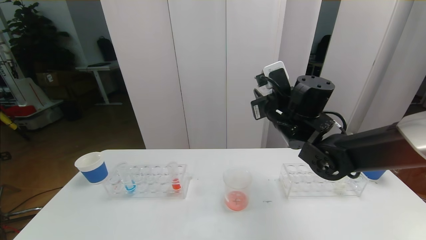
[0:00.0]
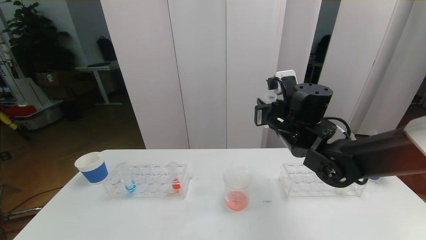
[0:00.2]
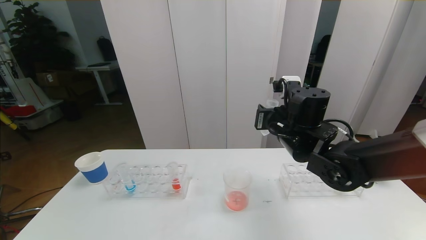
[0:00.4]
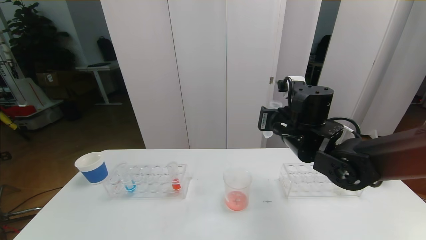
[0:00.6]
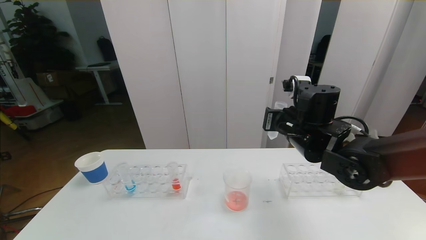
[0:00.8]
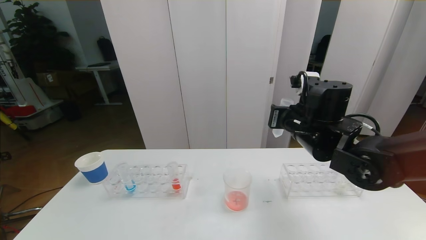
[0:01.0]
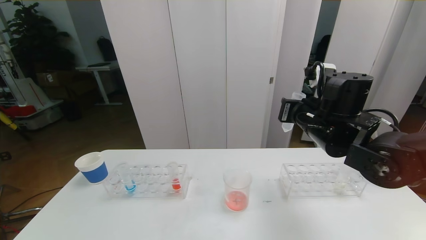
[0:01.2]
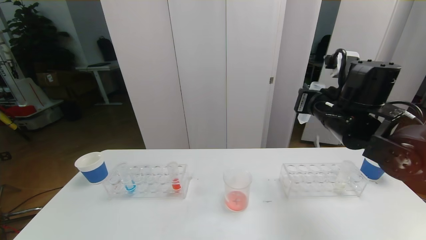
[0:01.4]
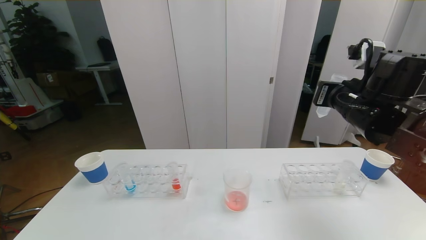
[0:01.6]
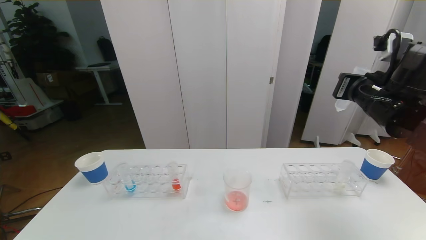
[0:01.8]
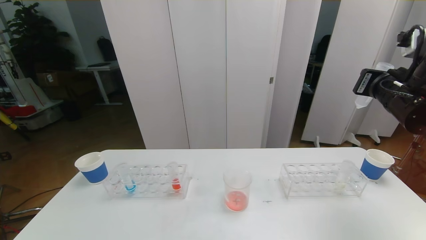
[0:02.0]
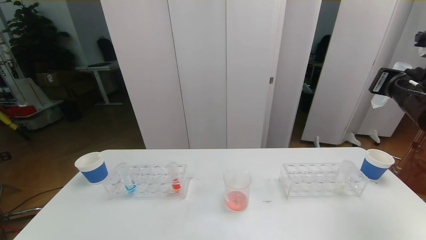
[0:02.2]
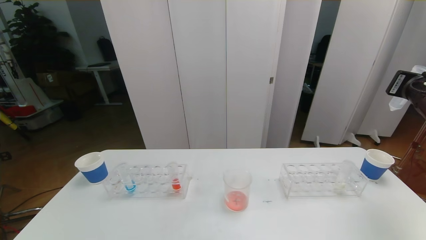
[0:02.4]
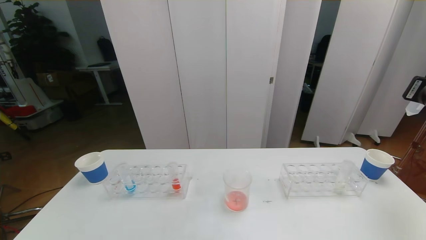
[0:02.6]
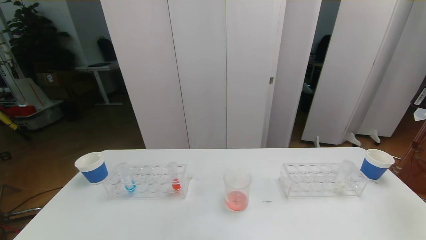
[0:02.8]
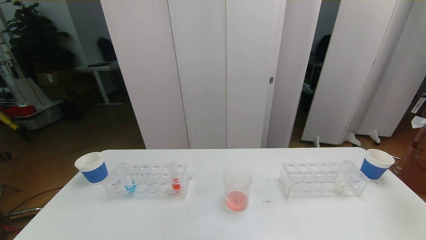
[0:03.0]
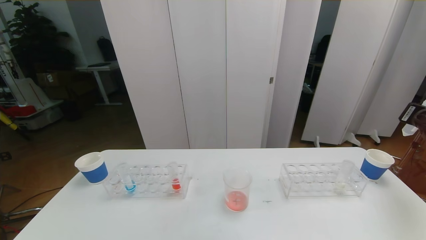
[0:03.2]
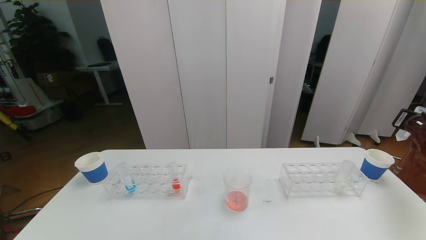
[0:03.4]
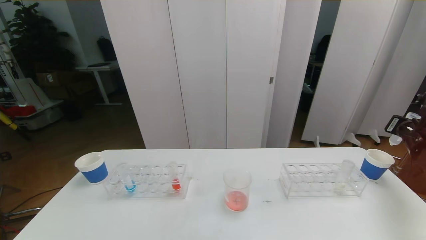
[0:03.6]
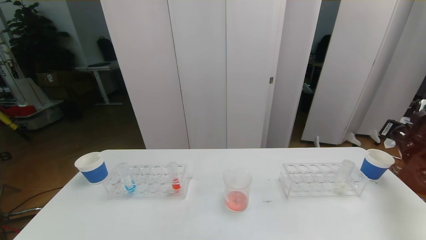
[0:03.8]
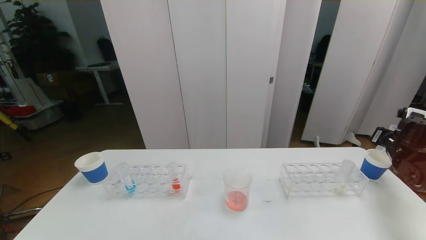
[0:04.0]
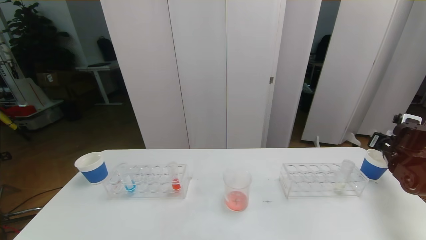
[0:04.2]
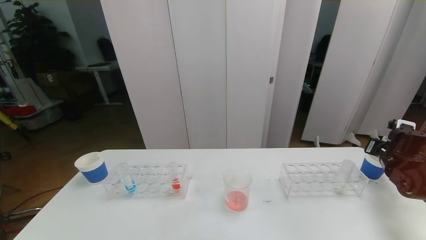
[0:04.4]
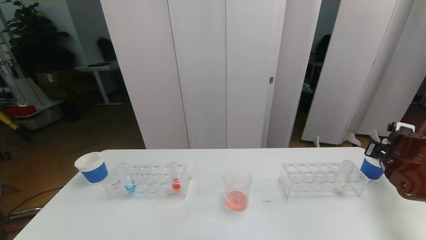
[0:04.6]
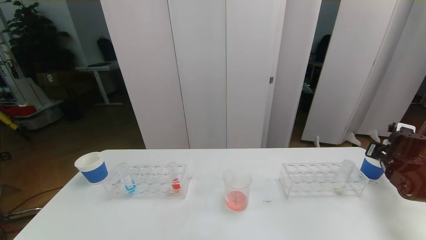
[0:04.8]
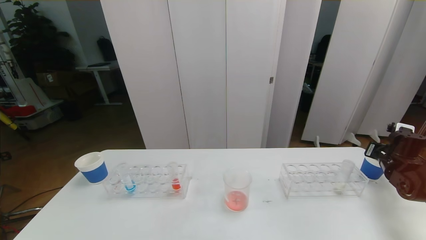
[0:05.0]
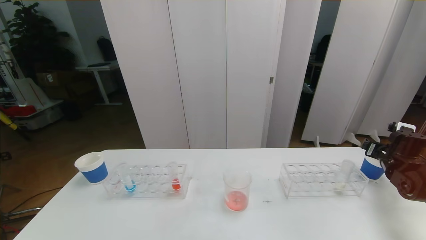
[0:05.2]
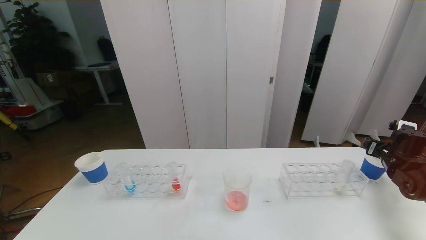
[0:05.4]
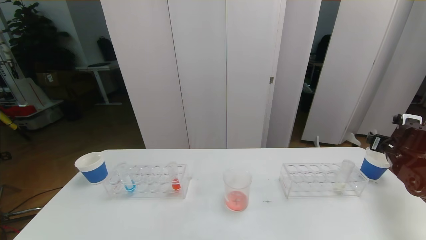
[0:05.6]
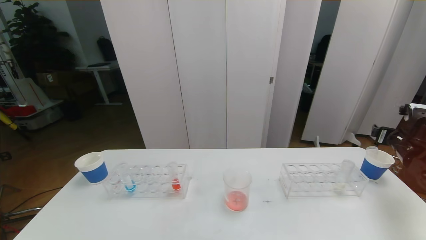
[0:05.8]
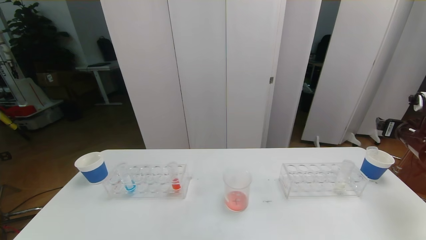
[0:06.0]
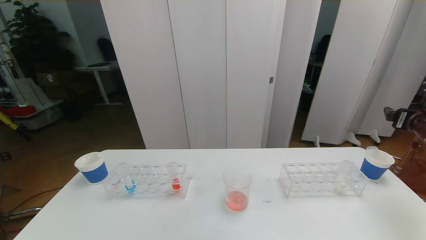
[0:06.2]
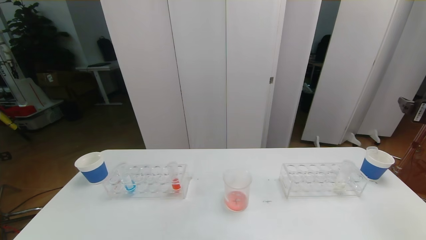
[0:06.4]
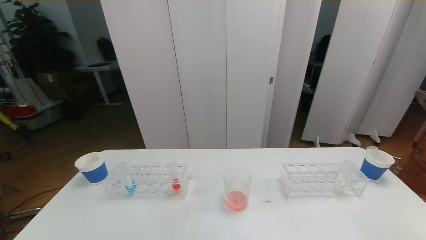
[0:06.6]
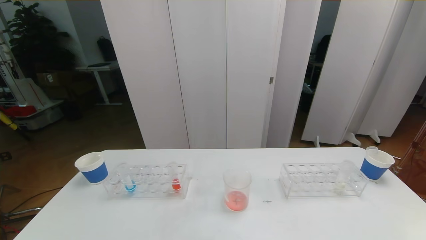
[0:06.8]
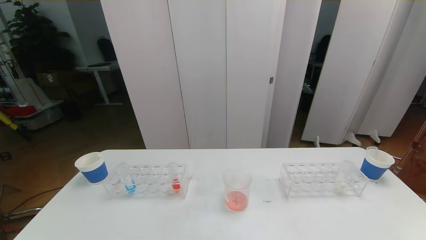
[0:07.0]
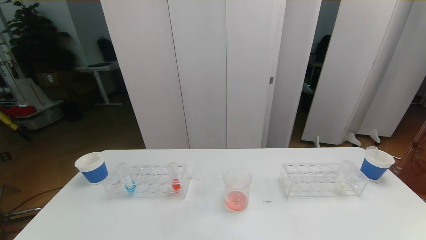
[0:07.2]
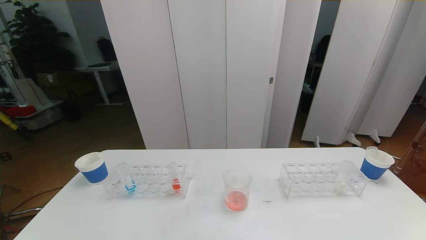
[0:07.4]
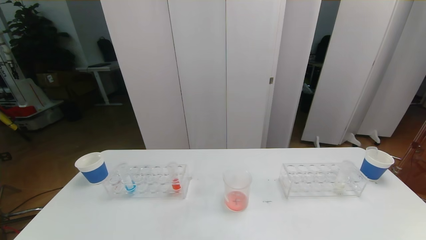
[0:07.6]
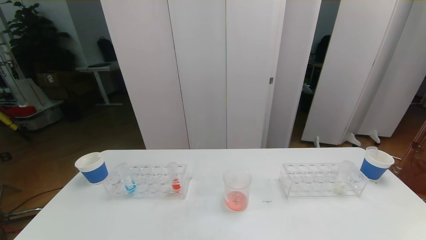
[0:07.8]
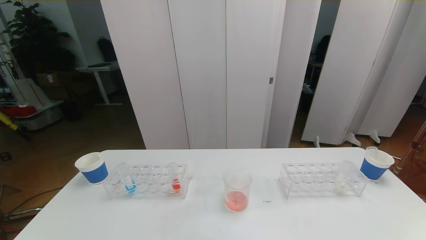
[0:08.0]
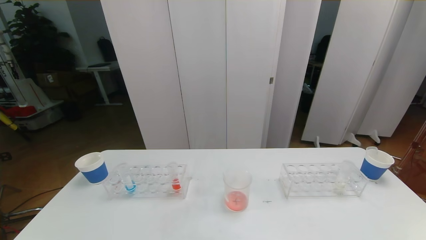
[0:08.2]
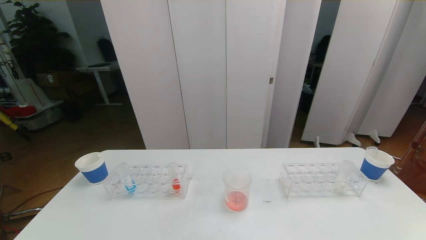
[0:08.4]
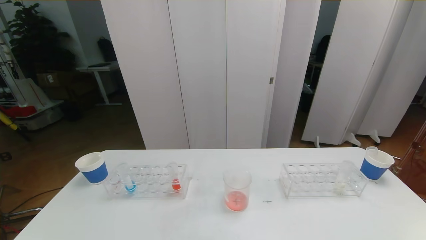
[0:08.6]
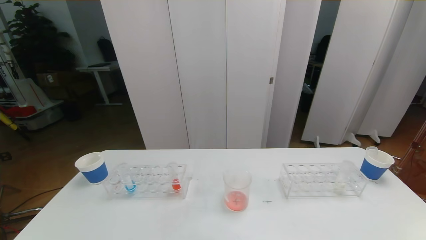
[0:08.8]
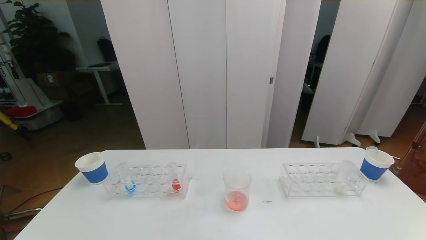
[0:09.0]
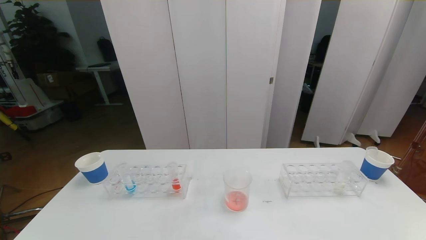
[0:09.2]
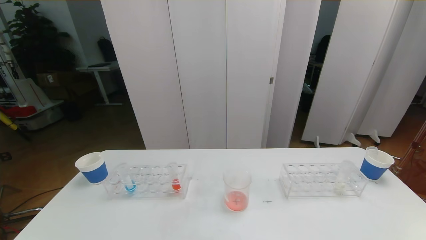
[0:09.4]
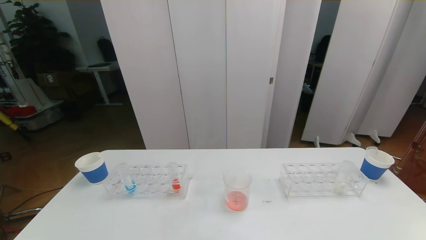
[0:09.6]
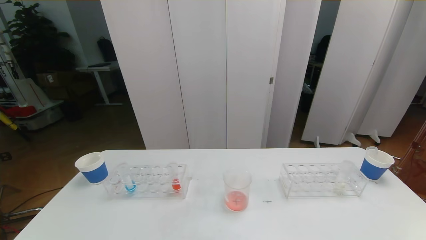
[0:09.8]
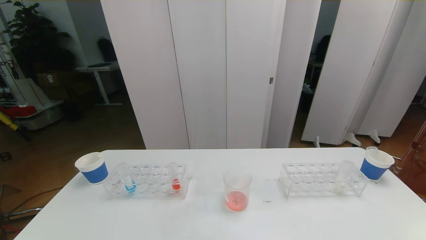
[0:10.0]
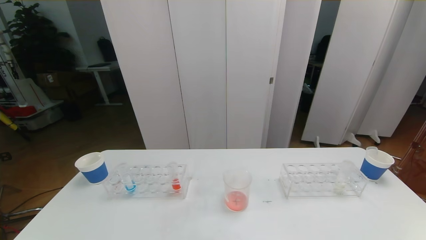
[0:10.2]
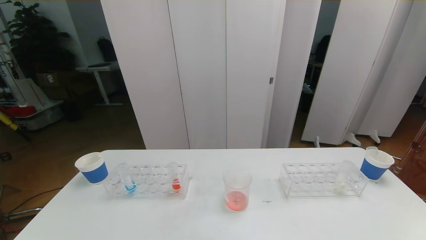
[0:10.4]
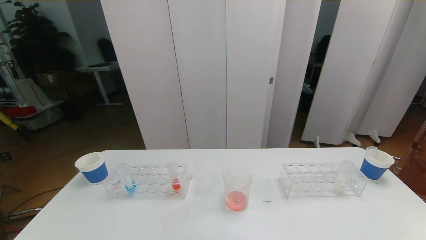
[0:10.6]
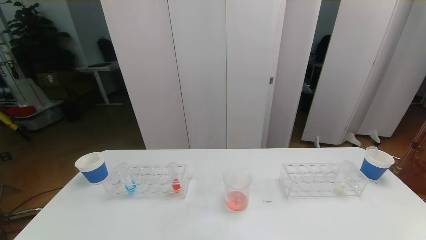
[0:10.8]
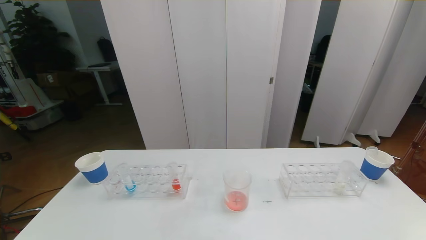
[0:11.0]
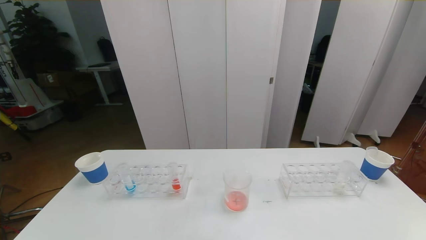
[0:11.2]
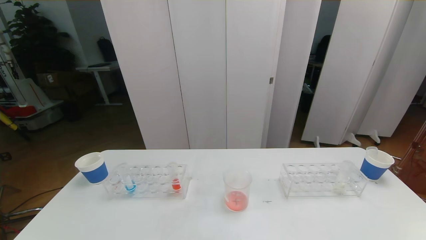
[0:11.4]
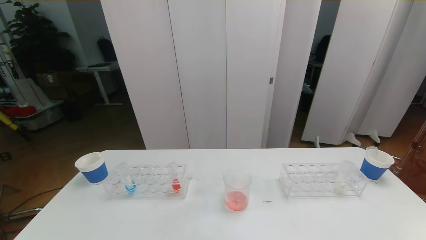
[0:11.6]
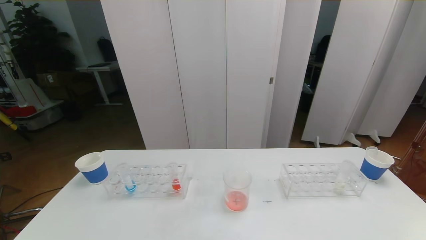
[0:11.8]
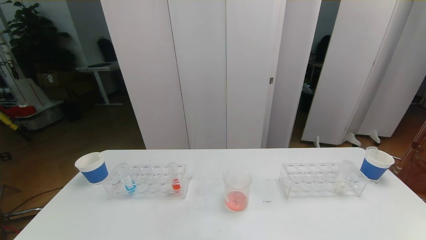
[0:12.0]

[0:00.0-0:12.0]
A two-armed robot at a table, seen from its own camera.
Task of the whole recording: pick up the test tube with red pigment the test tube with blue pigment and the test tube with white pigment by grippers and pour them into the beaker.
0:00.0 to 0:01.6: The right gripper goes approximately 10 cm to the right.
0:01.6 to 0:03.0: The right gripper travels to the right by some 20 cm.
0:03.0 to 0:04.4: The right gripper moves downward, about 15 cm.
0:04.4 to 0:06.0: The right gripper travels upward by about 10 cm, and opens up.
0:06.0 to 0:07.6: The right gripper goes about 40 cm backward.
0:09.0 to 0:10.4: Neither gripper changes place.

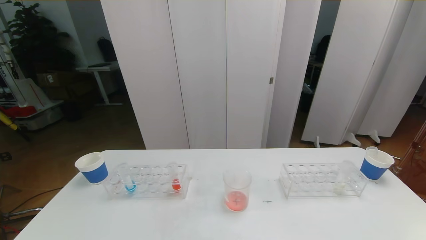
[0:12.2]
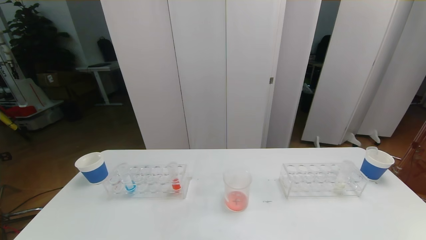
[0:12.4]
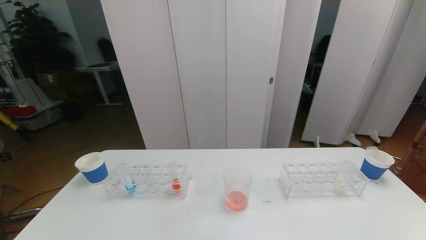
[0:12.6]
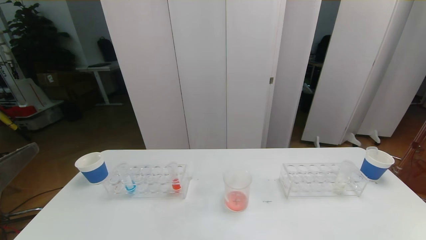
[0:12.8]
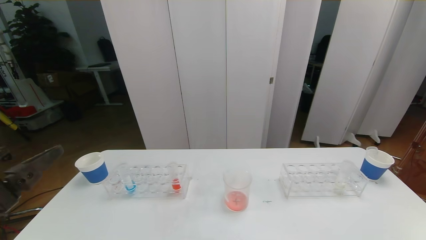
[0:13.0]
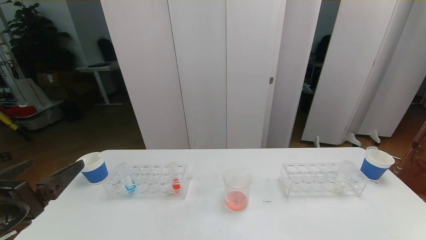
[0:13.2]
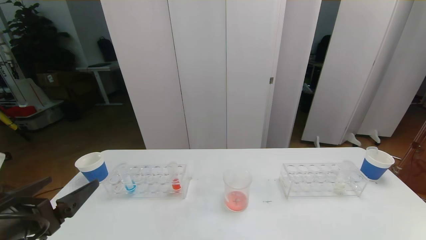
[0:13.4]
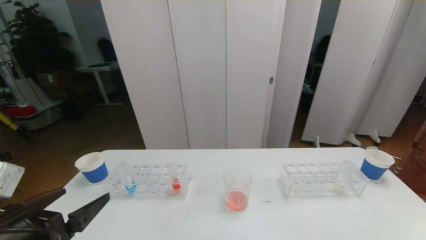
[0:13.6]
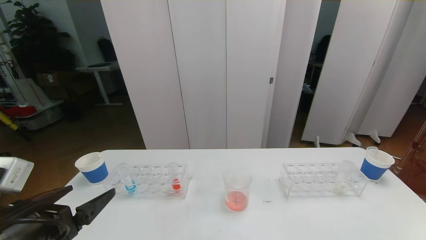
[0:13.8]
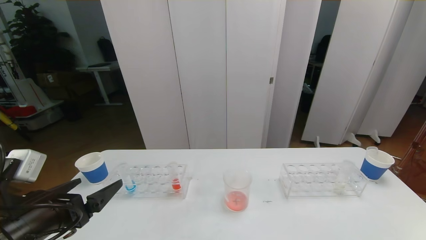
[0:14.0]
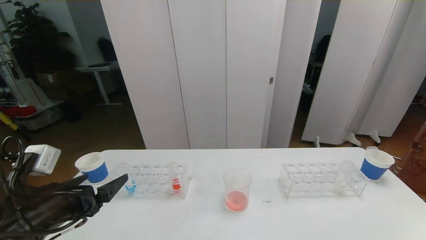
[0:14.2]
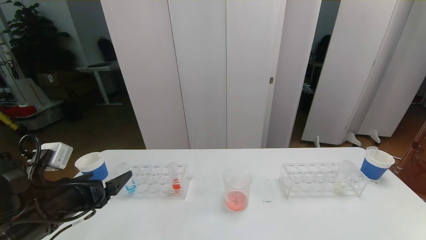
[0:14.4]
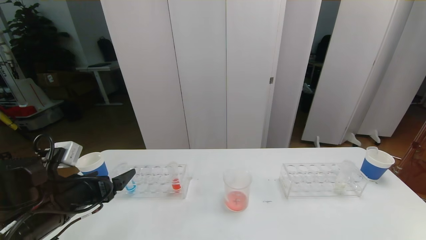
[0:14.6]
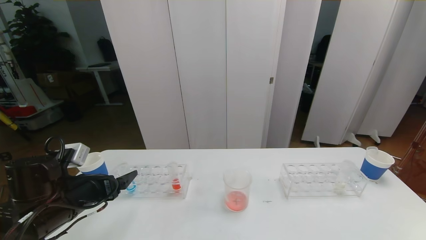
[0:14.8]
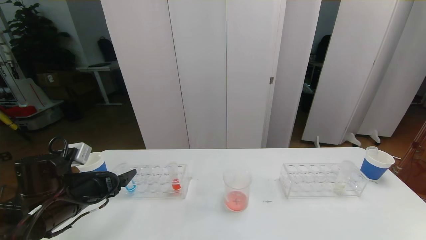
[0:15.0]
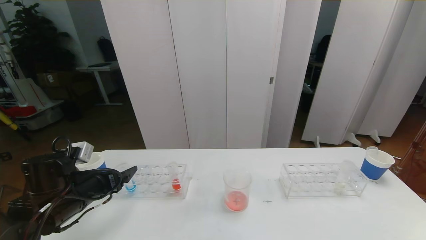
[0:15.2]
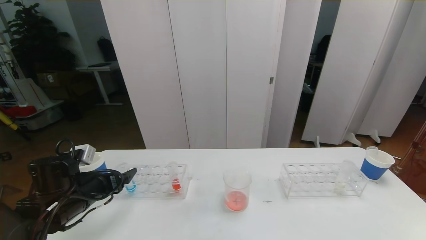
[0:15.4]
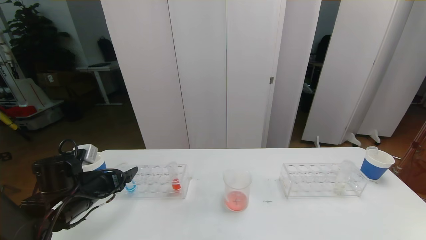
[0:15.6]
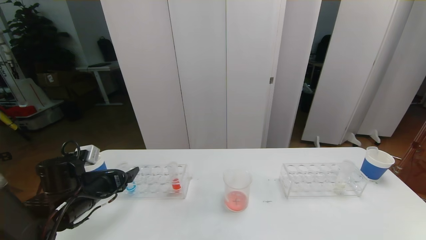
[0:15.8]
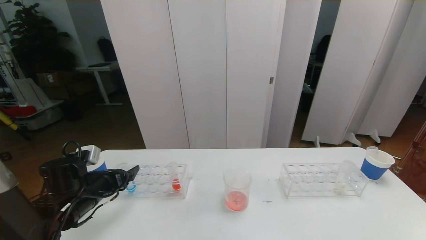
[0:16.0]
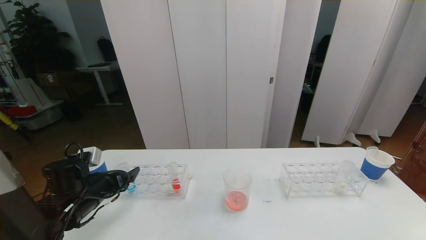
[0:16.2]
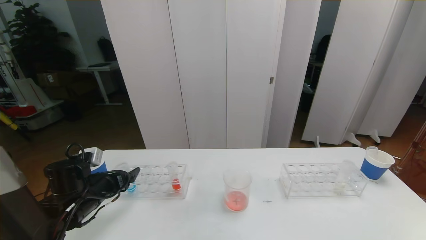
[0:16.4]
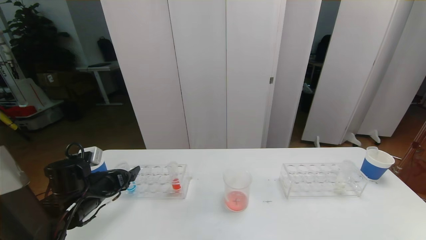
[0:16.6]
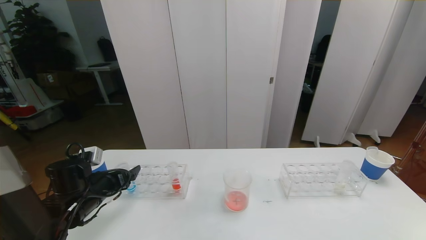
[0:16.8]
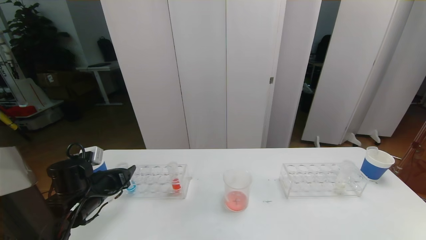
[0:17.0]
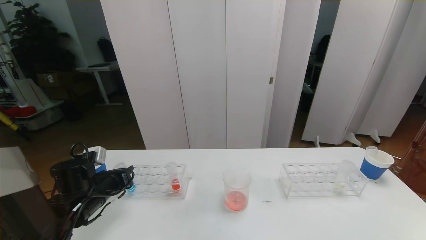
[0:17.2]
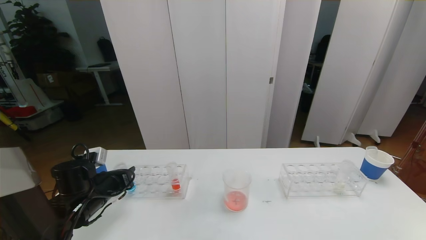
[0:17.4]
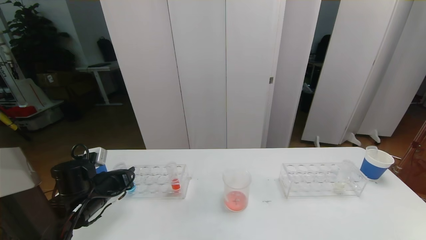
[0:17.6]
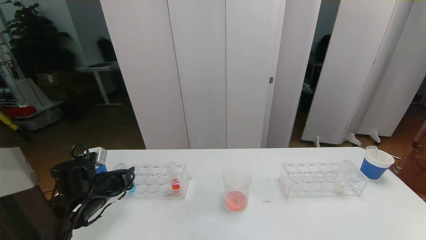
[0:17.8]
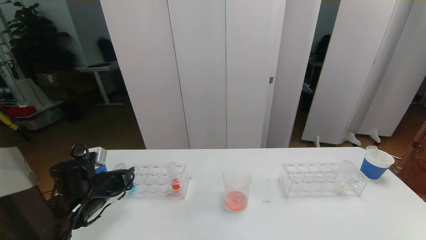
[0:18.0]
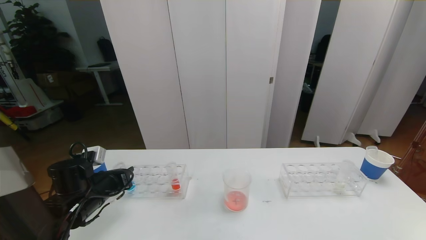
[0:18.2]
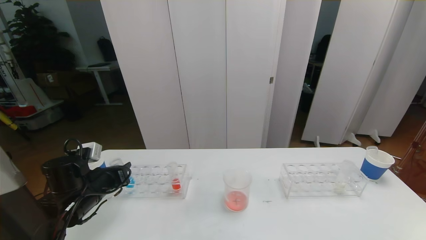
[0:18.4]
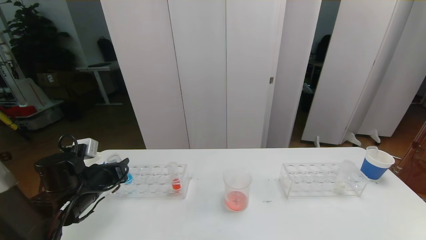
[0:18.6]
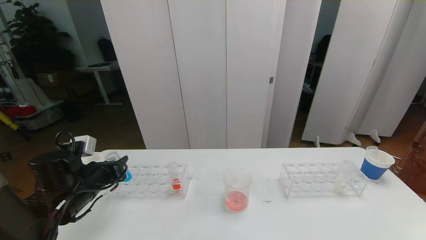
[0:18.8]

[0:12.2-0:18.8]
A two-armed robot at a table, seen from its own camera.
Task of the whole recording: pick up the test tube with red pigment the test tube with blue pigment and the test tube with white pigment by grippers and pour them into the beaker.
0:12.2 to 0:13.8: The left gripper travels forward and downward by about 15 cm.
0:13.8 to 0:15.4: The left gripper shifts some 15 cm forward and downward.
0:15.4 to 0:17.2: The left gripper closes up.
0:17.2 to 0:18.8: The grippers stay close to where they were, moving slightly.
